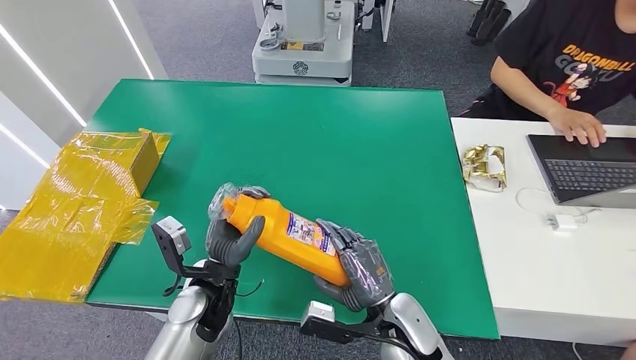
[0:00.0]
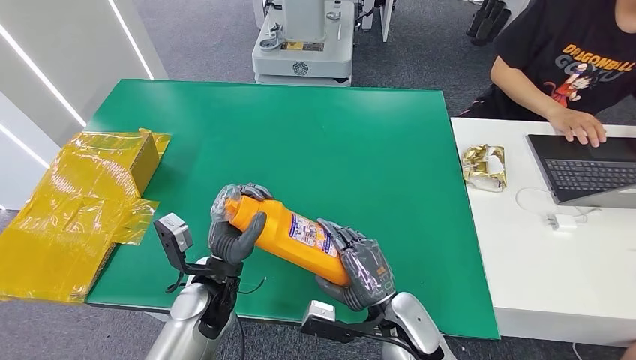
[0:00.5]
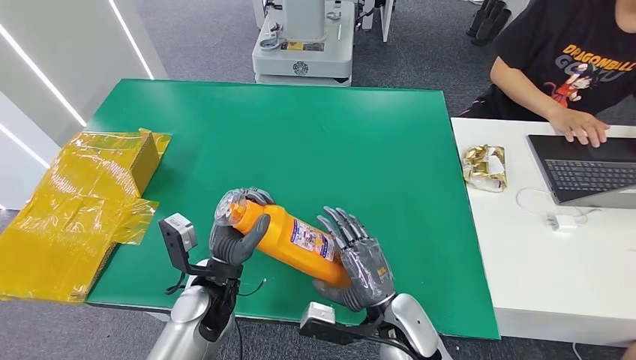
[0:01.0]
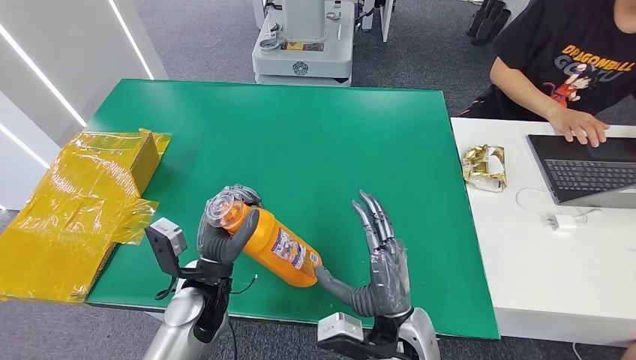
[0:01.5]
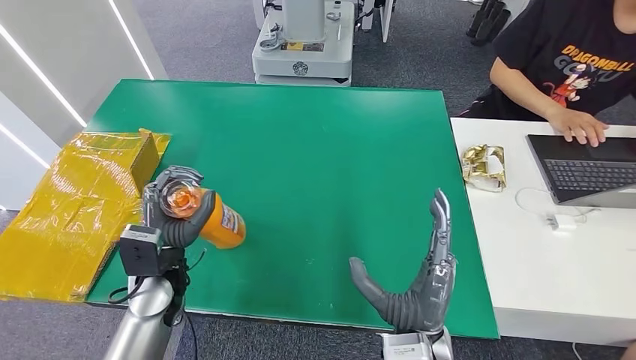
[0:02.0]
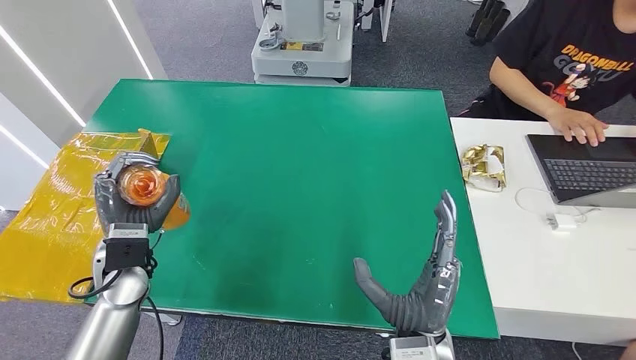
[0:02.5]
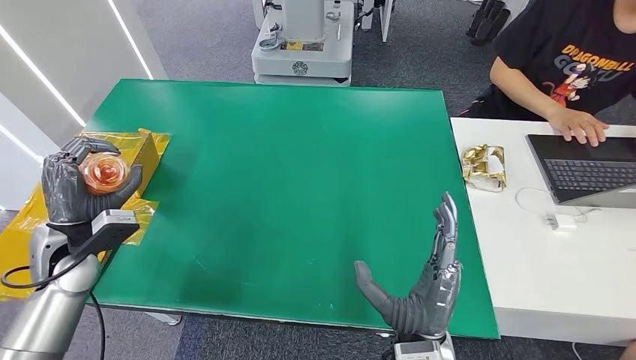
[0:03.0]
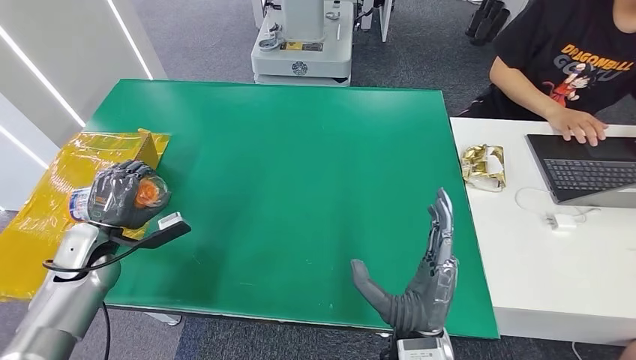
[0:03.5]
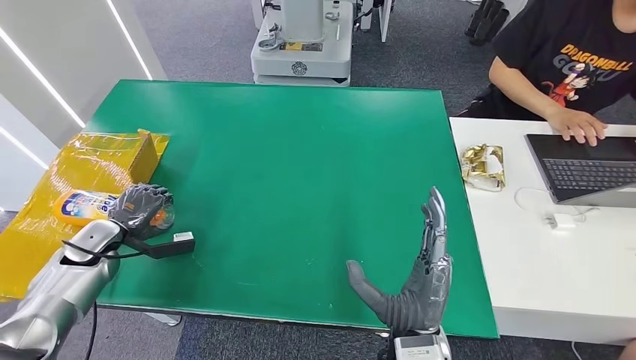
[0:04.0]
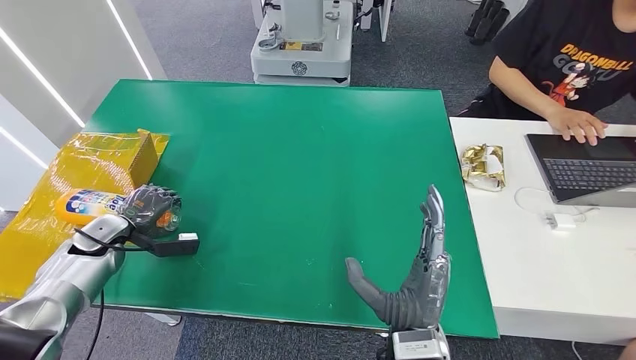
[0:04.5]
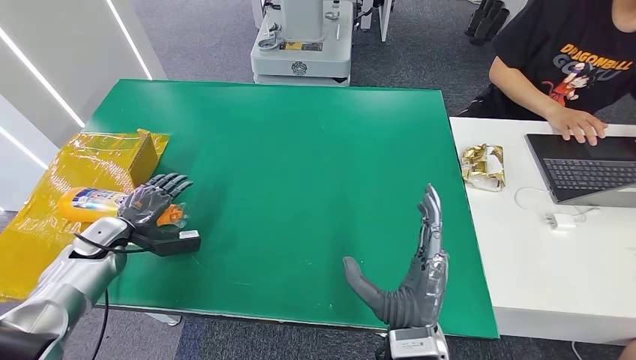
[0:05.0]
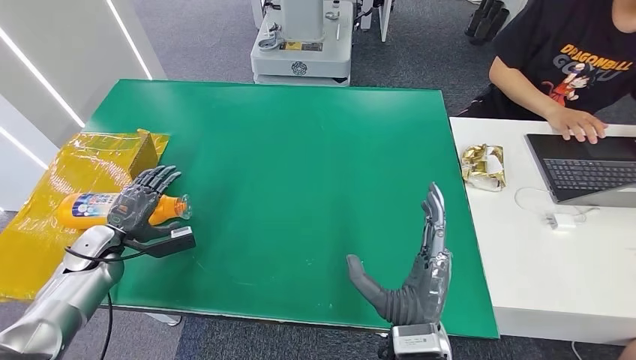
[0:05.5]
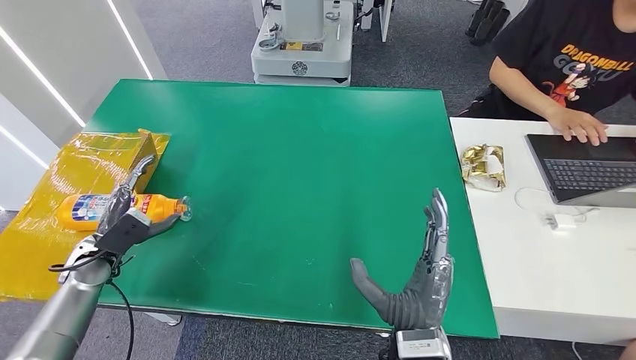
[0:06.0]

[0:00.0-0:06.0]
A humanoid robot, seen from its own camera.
Step, 0:00.0 to 0:06.0: Turn the bottle to the front side.
0:00.0 to 0:02.0: The left hand is displaced to the left by some 10 cm. The right hand moves upward and backward, approximately 10 cm.
0:02.0 to 0:04.0: The left hand travels to the left by approximately 20 cm.
